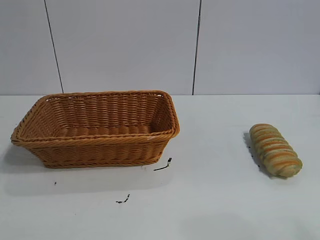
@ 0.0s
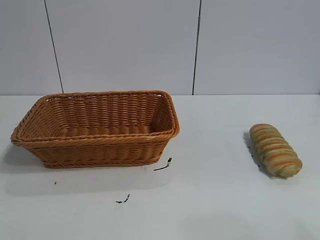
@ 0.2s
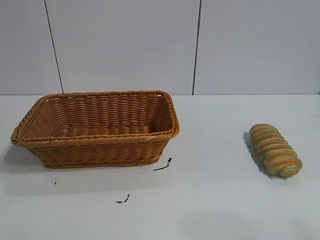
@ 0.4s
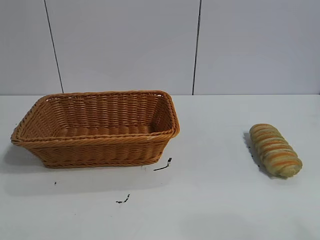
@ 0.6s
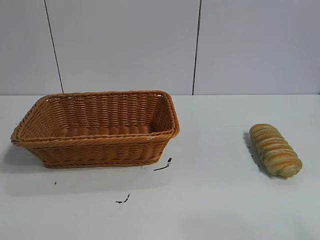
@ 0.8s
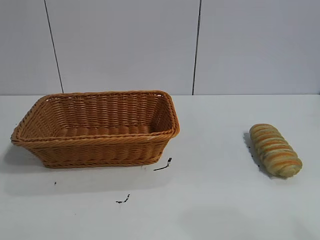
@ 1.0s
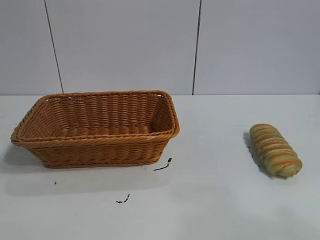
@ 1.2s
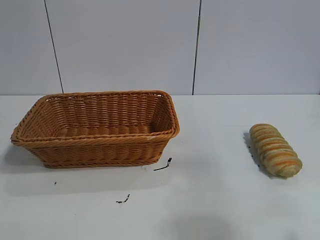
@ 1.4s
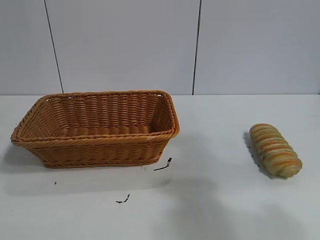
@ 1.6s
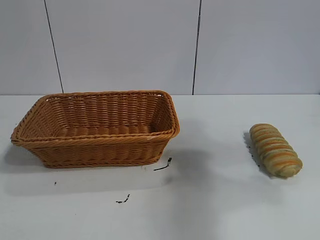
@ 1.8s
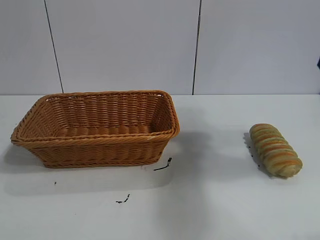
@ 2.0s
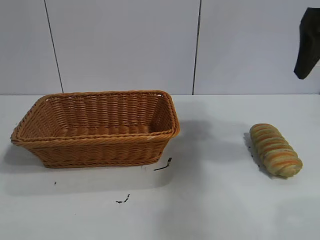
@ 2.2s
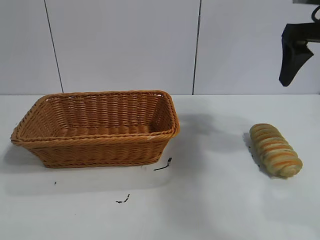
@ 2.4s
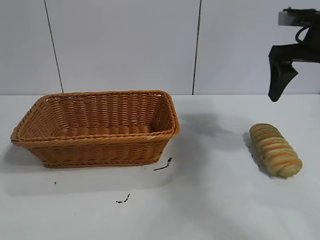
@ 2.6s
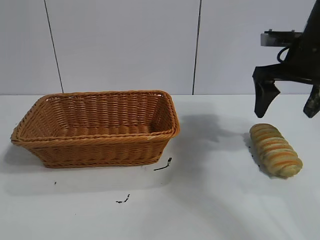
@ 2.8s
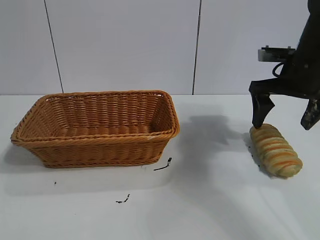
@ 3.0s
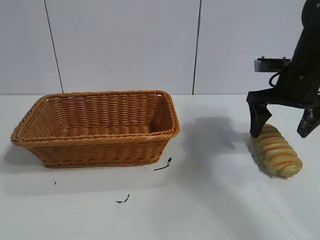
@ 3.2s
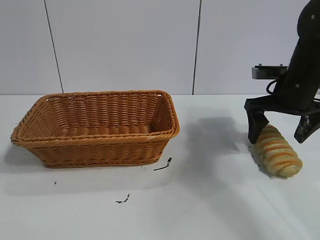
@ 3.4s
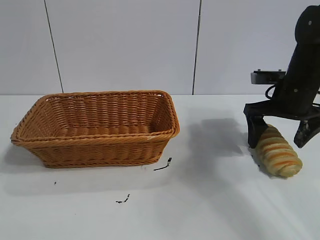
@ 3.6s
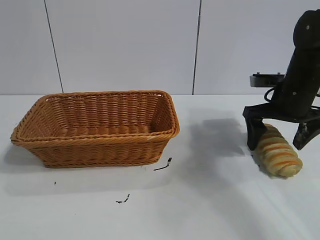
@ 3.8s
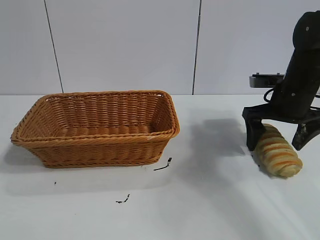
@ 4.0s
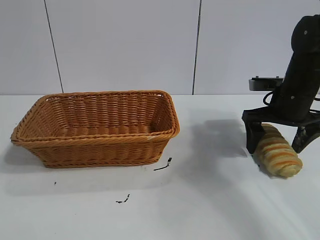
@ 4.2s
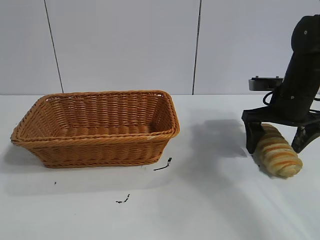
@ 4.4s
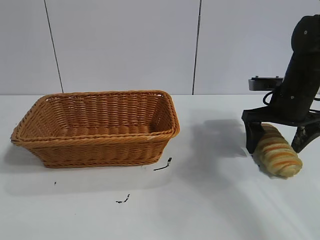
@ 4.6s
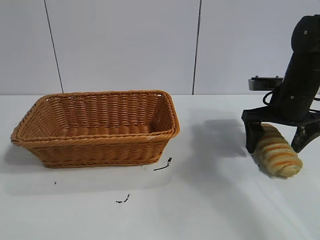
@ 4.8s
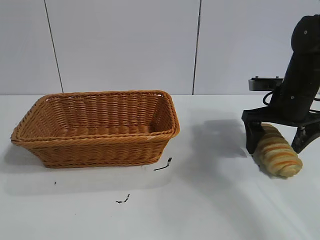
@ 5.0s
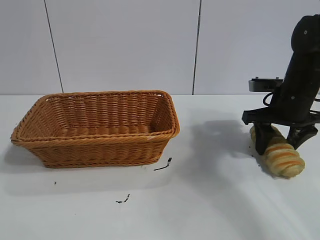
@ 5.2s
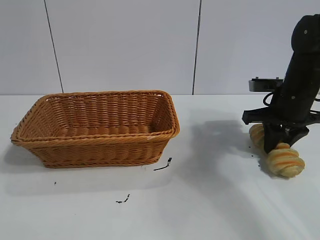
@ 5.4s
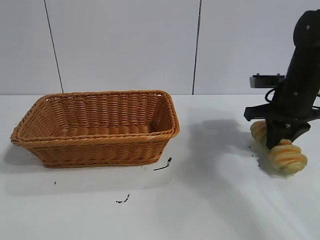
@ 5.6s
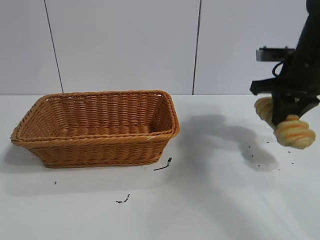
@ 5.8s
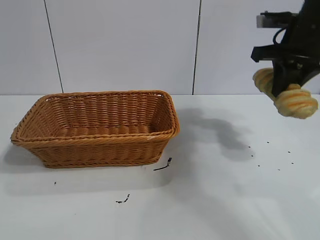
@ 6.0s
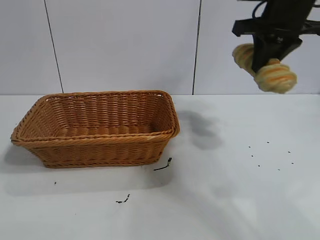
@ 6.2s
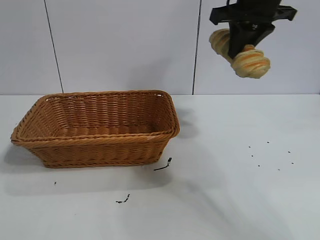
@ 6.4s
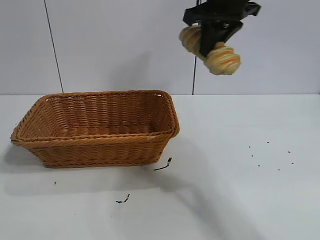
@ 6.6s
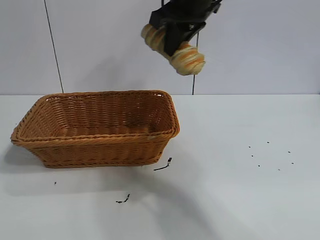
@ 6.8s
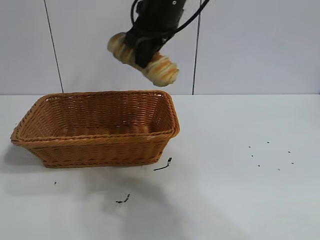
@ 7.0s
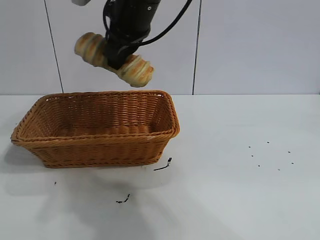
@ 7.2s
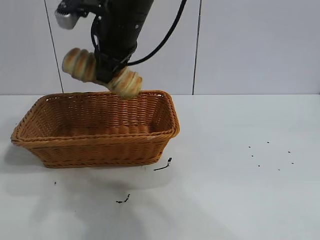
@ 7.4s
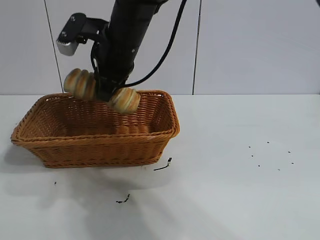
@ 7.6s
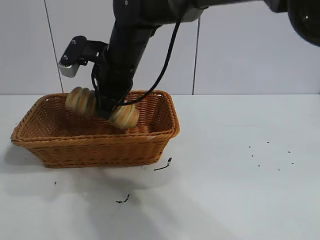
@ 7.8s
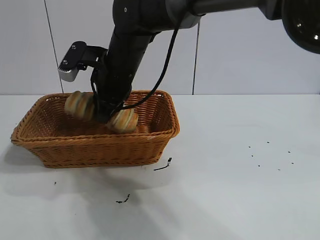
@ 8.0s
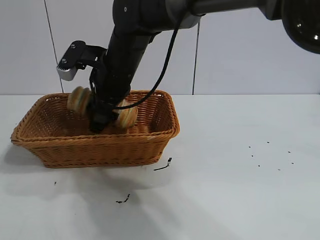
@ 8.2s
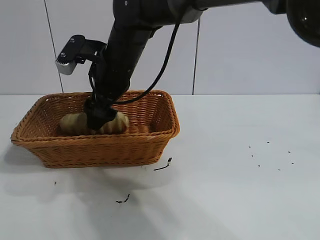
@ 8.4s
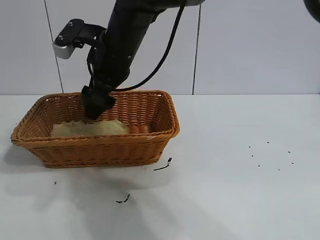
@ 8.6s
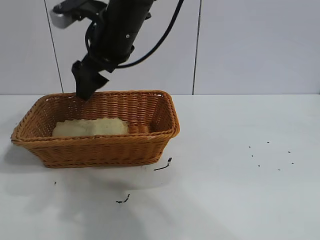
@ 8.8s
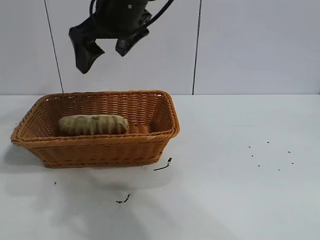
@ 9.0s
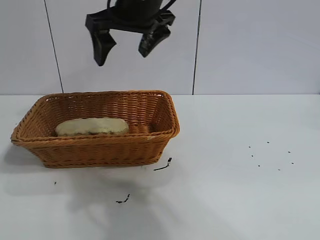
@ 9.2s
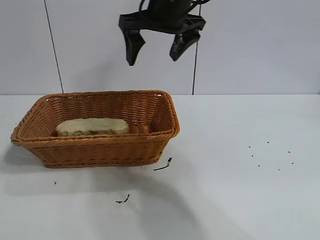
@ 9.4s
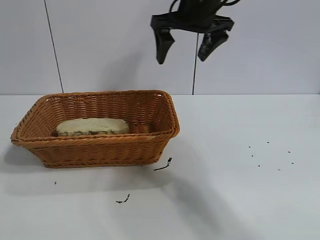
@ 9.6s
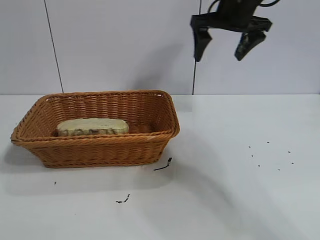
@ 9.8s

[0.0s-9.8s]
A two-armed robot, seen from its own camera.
Task of the whole recording: pick up the long bread and put it into the basket.
Step, 2.0s to 5.4s: Grasp the long bread with right gripper.
Step, 5.8s to 8.8s: Place the long bread in the basket with right gripper.

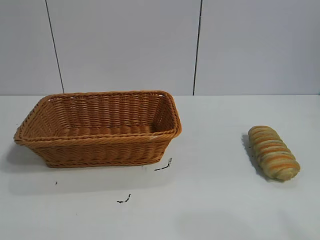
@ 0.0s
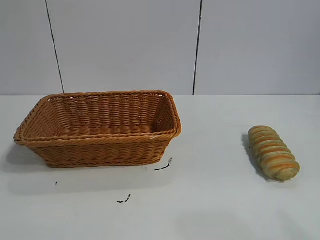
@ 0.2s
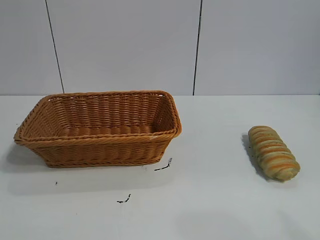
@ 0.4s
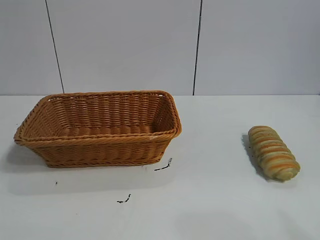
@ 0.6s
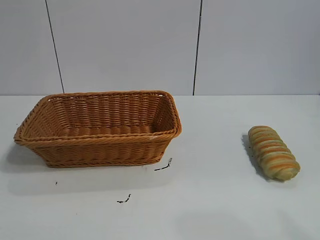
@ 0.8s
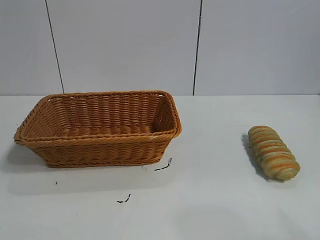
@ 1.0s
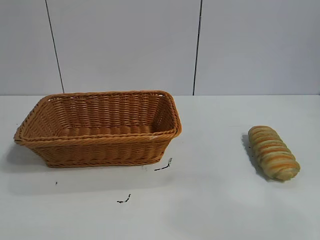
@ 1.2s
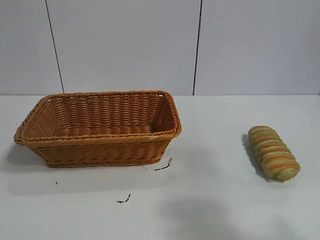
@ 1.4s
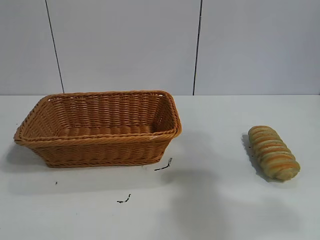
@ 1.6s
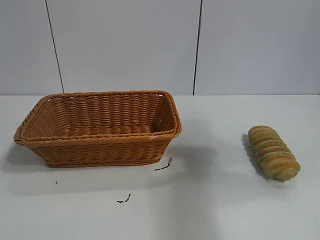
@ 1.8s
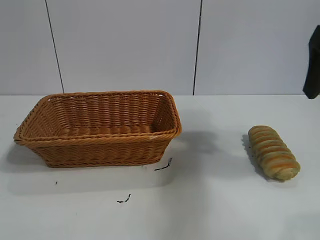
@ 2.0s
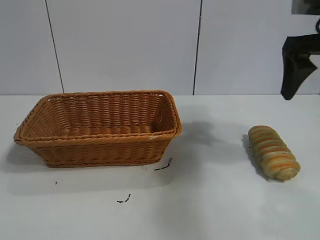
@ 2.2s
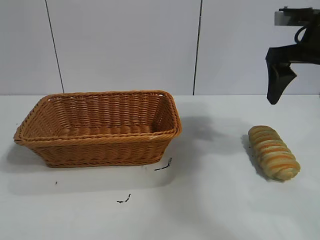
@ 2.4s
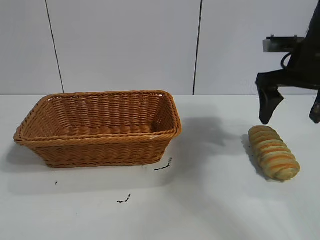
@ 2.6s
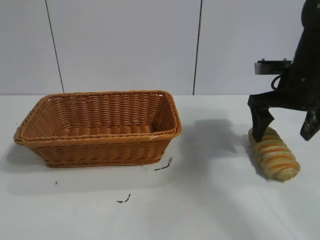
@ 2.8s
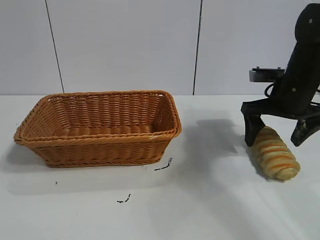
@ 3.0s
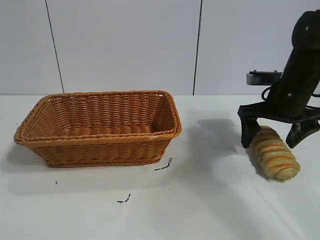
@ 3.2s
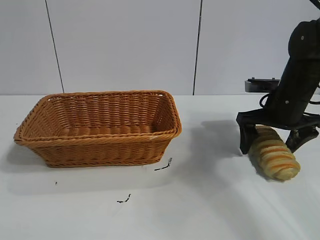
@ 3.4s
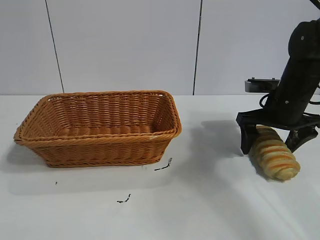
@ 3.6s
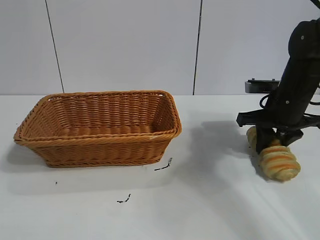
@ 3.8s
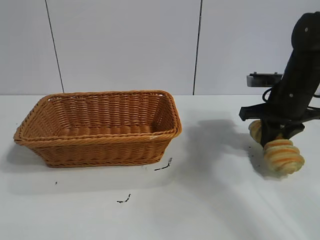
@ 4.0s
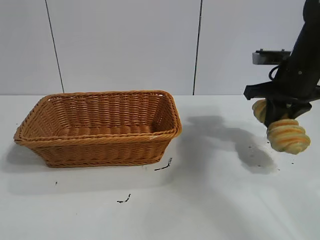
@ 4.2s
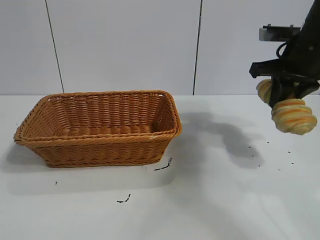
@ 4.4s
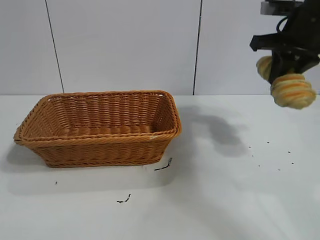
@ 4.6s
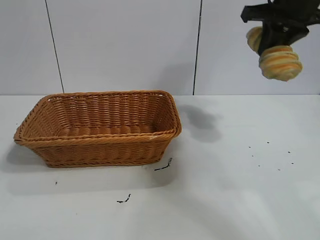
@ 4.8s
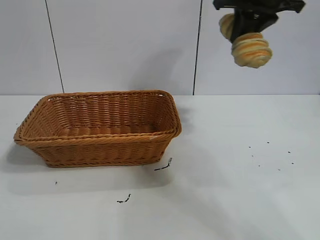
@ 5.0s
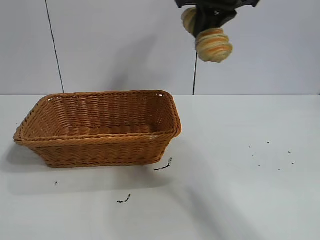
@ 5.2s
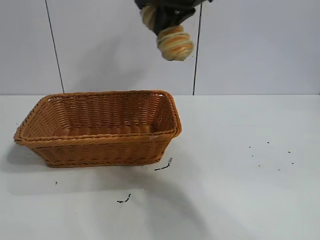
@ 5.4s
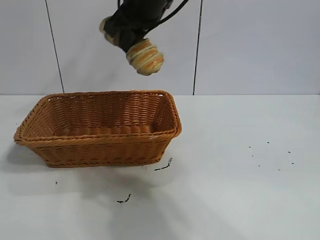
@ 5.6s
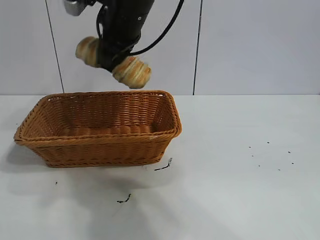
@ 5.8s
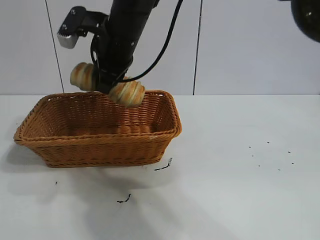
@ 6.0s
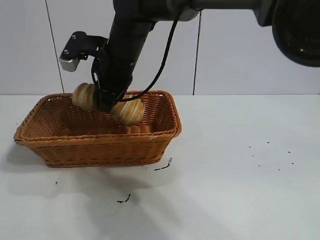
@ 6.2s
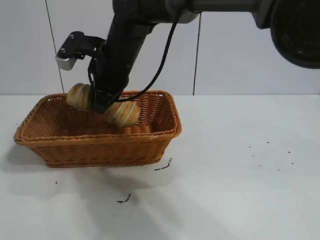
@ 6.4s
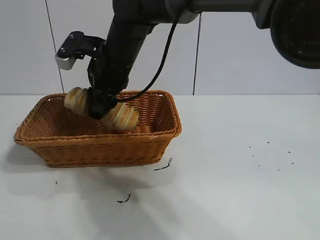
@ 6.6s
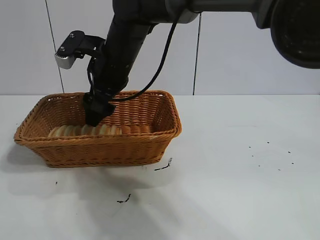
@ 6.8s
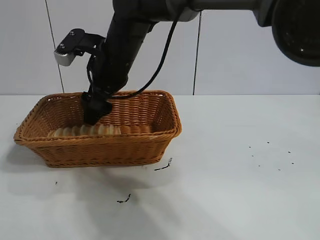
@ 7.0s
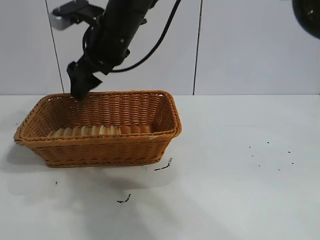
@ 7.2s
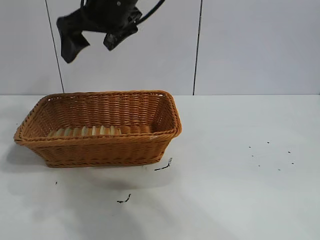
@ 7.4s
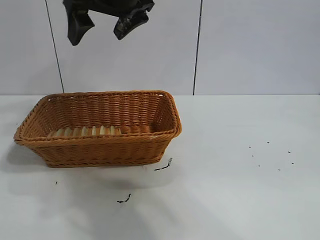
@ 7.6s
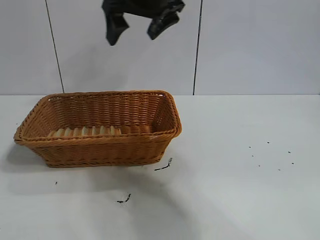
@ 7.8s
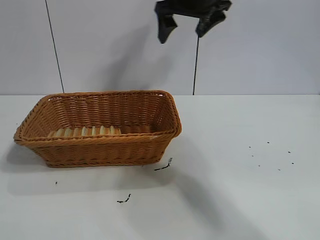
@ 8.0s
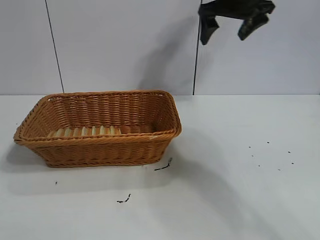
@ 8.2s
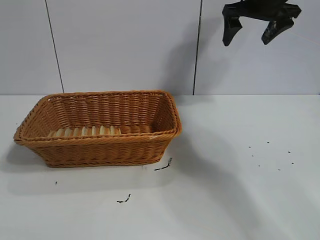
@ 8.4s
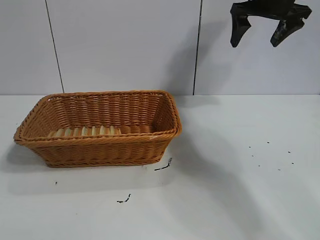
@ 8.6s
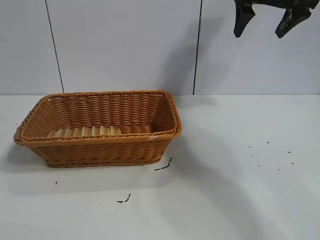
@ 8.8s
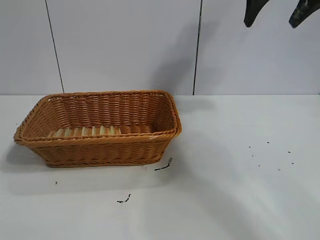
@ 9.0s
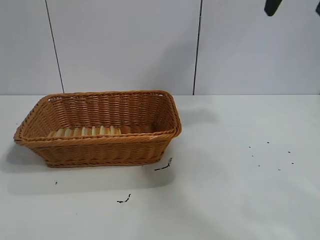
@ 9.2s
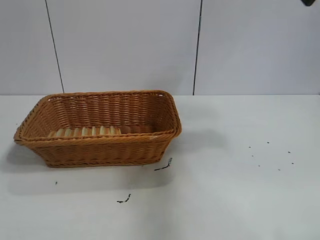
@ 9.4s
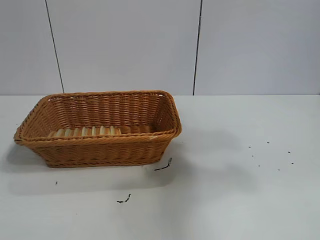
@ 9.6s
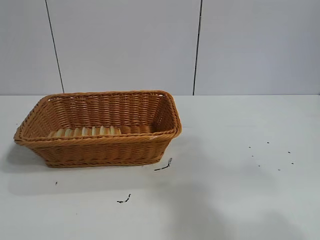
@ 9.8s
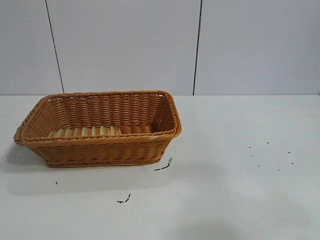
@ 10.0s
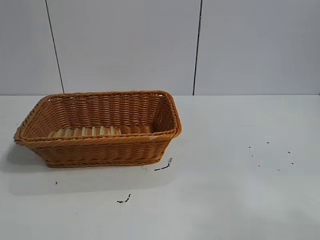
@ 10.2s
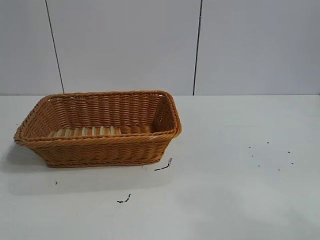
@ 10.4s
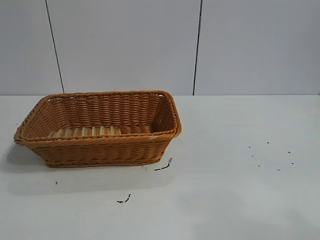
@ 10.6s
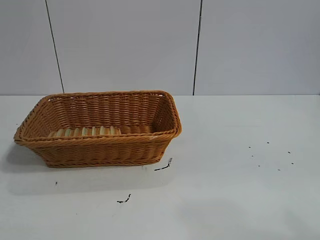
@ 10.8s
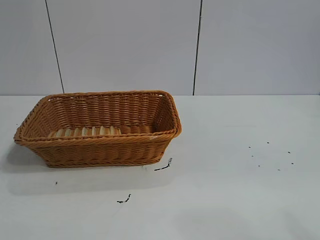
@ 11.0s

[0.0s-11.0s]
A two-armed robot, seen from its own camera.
Task of the whole recording: pick up the long bread and put it into the basket.
Step, 2.0s to 3.8s: Grasp the long bread with right gripper.
Step, 4.0s to 7.2s: Place the long bread in the basket with right gripper.

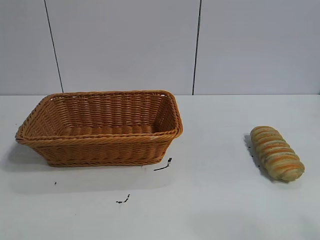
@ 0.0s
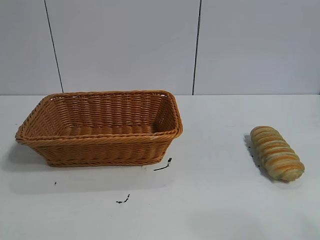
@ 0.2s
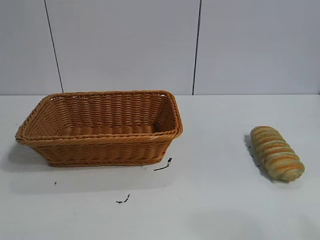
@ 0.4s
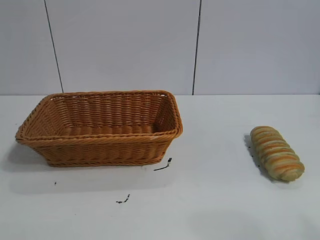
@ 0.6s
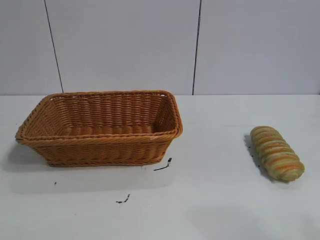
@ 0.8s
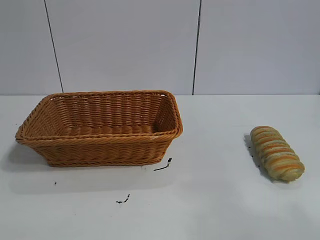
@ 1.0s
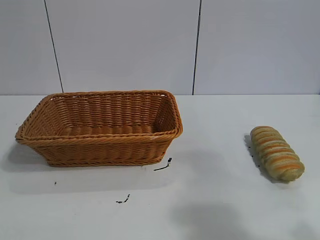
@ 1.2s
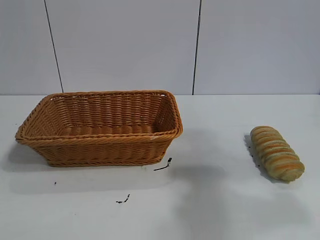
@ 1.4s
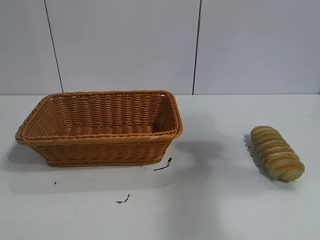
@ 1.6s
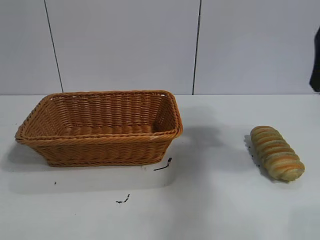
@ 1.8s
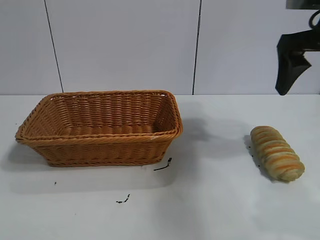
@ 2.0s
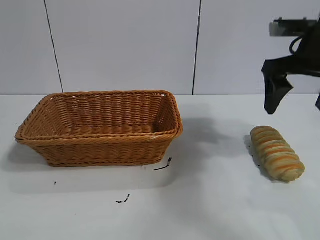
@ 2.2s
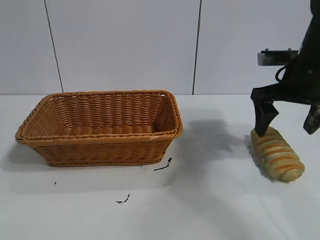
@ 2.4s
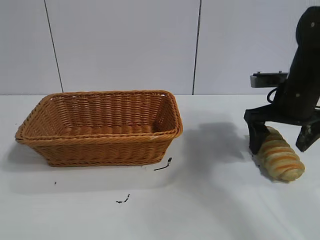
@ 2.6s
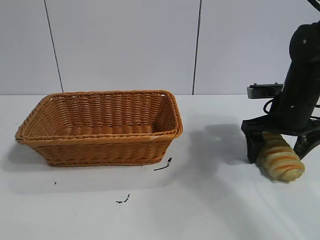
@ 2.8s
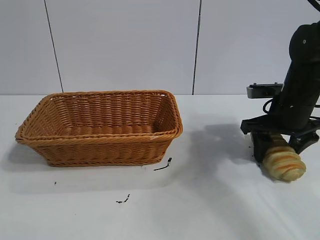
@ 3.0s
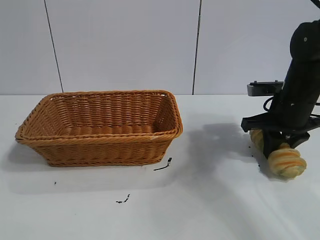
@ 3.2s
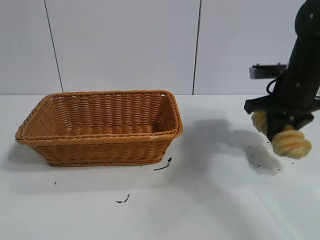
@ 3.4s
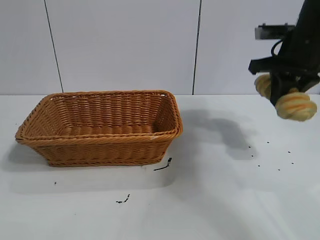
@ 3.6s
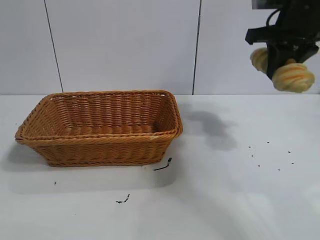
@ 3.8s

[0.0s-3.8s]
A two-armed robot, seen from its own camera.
Task of the whole recording: pick up the long bread and put it into the basket.
Step, 1.8s to 3.2s: Grasp the long bread with right gripper.
